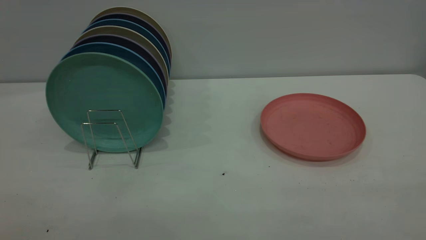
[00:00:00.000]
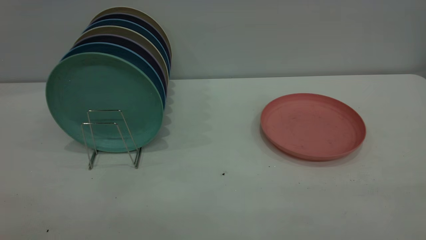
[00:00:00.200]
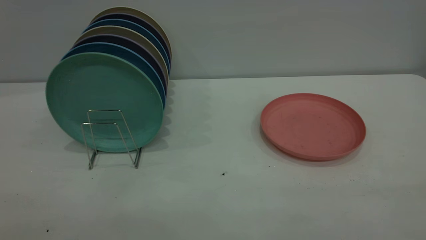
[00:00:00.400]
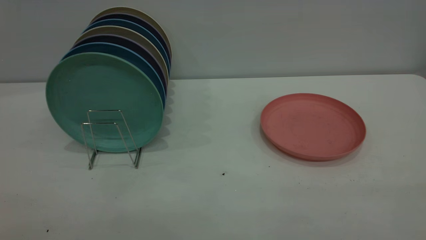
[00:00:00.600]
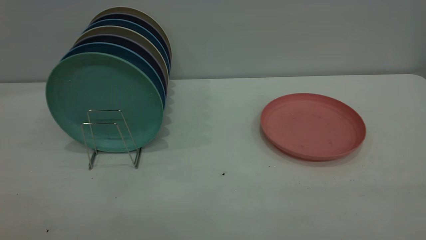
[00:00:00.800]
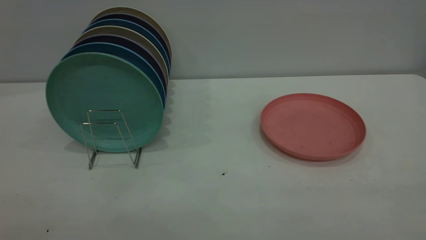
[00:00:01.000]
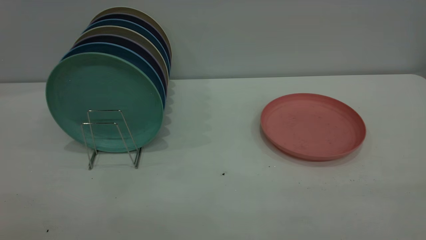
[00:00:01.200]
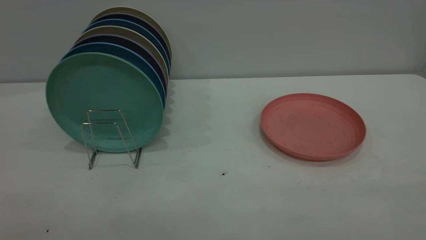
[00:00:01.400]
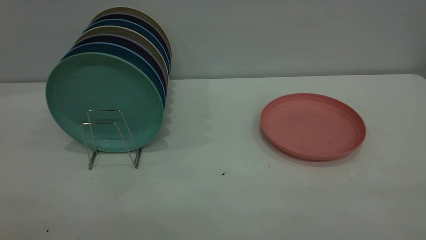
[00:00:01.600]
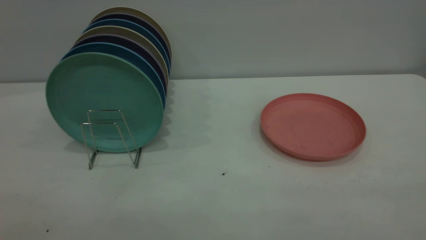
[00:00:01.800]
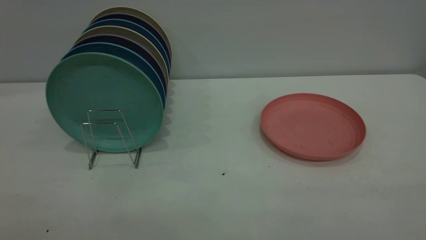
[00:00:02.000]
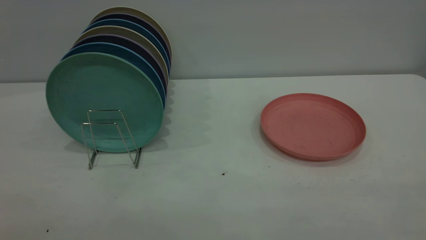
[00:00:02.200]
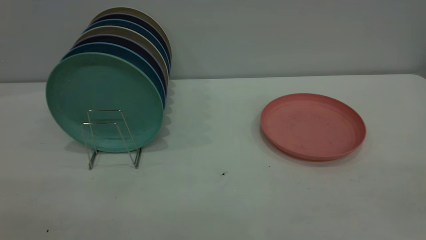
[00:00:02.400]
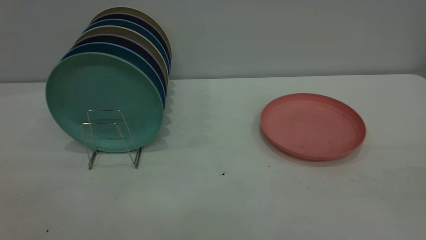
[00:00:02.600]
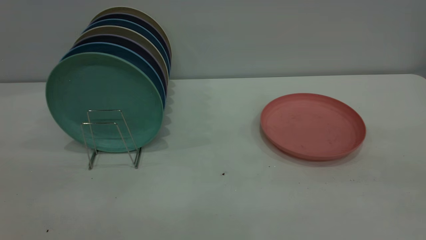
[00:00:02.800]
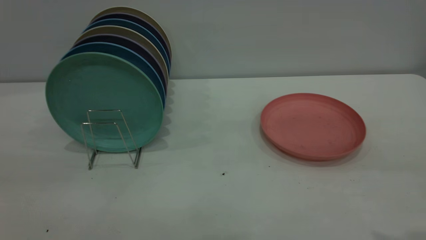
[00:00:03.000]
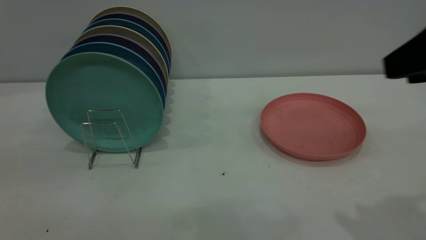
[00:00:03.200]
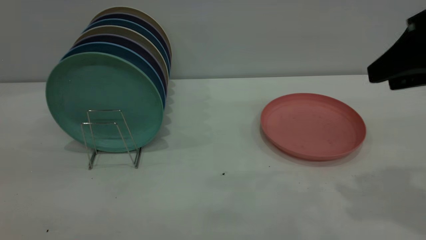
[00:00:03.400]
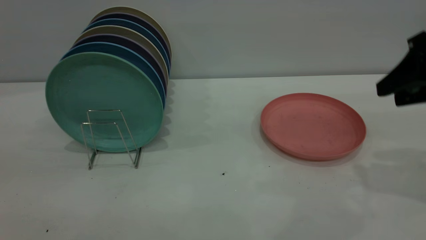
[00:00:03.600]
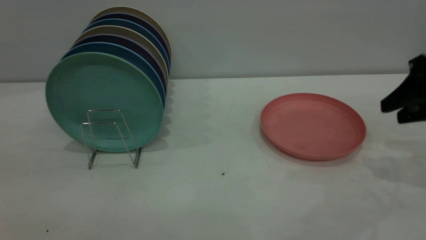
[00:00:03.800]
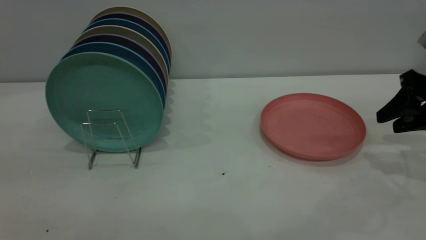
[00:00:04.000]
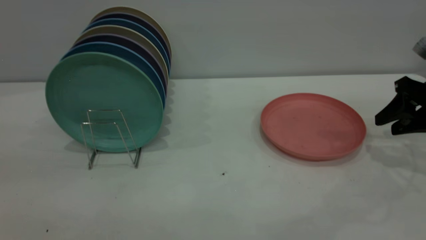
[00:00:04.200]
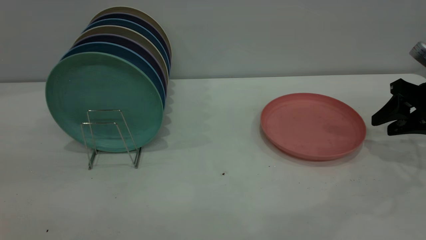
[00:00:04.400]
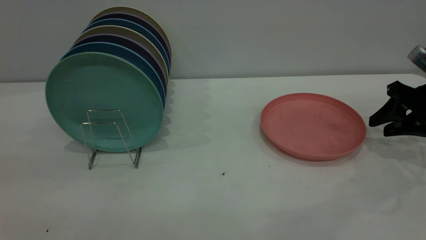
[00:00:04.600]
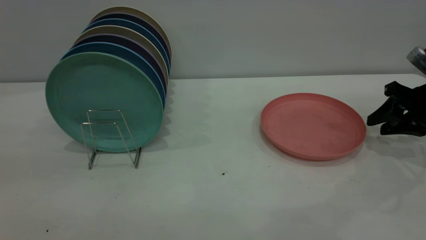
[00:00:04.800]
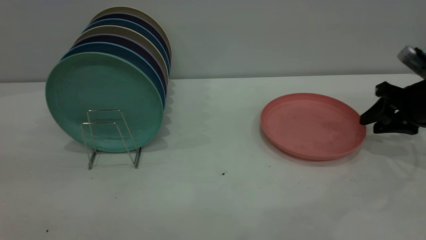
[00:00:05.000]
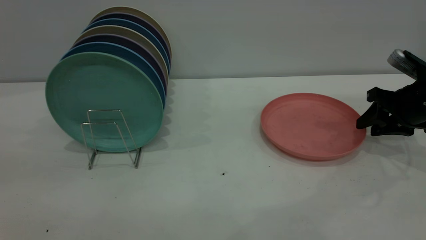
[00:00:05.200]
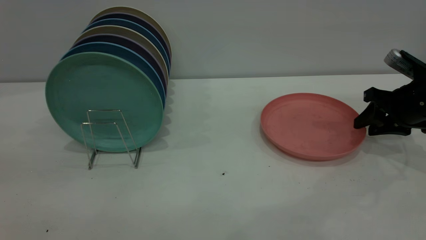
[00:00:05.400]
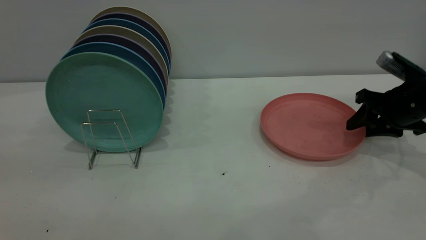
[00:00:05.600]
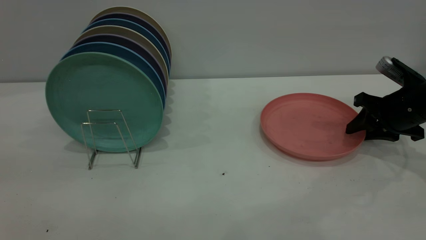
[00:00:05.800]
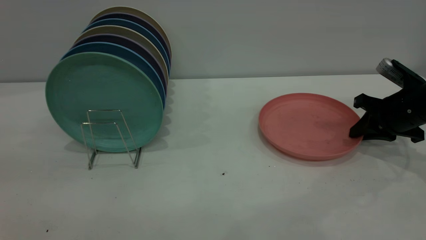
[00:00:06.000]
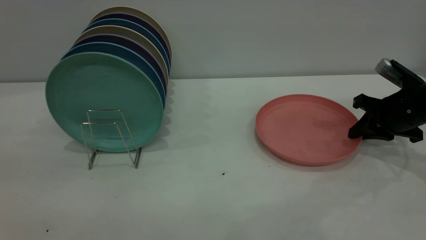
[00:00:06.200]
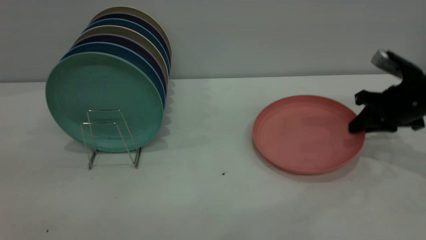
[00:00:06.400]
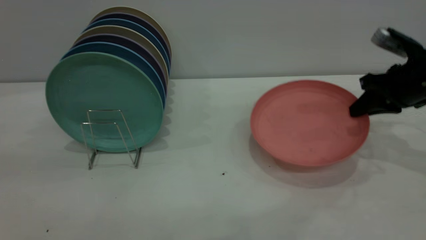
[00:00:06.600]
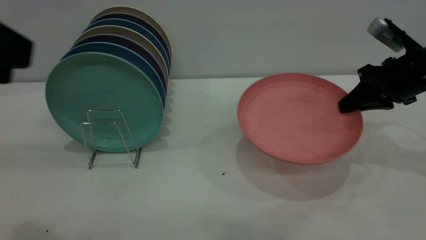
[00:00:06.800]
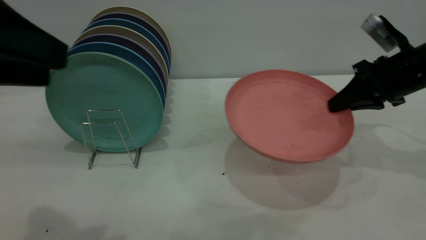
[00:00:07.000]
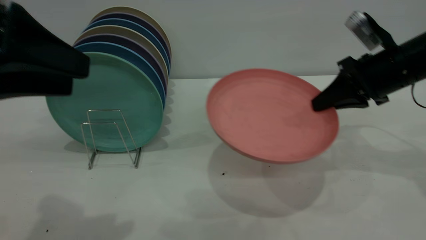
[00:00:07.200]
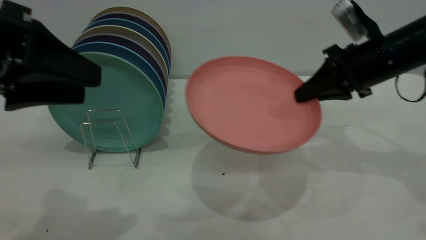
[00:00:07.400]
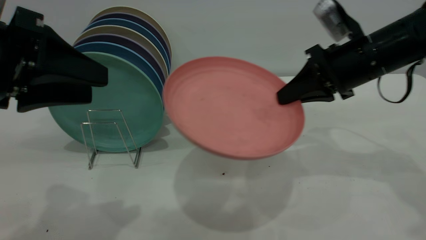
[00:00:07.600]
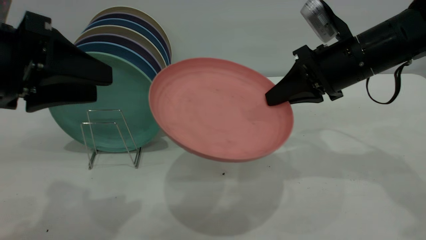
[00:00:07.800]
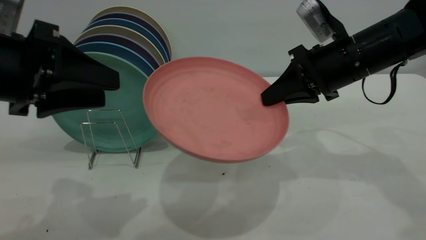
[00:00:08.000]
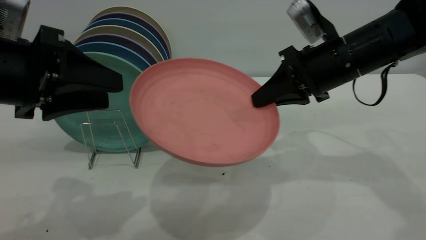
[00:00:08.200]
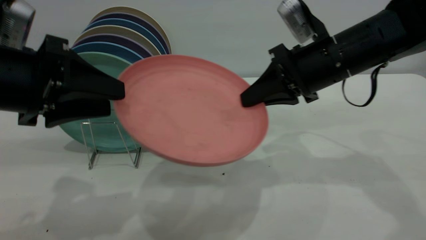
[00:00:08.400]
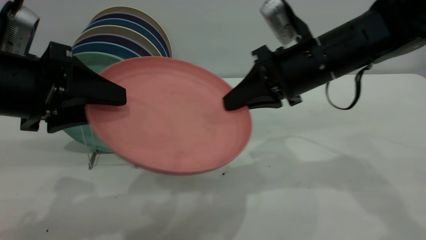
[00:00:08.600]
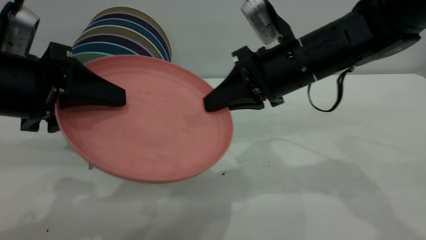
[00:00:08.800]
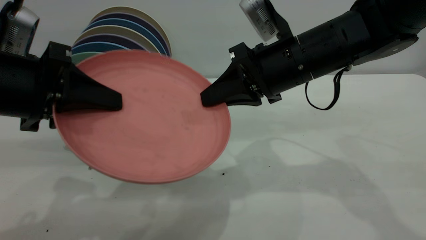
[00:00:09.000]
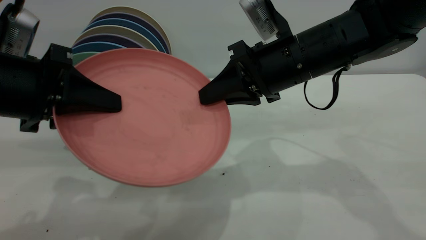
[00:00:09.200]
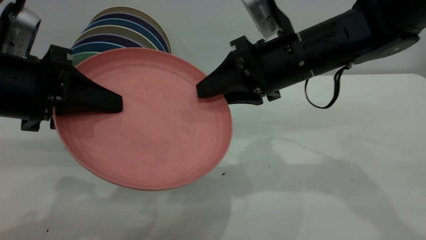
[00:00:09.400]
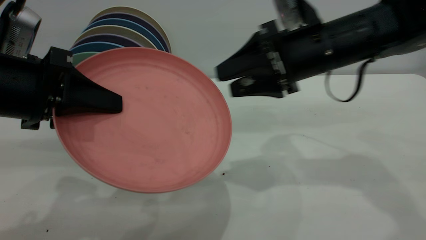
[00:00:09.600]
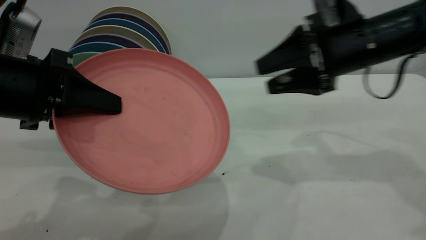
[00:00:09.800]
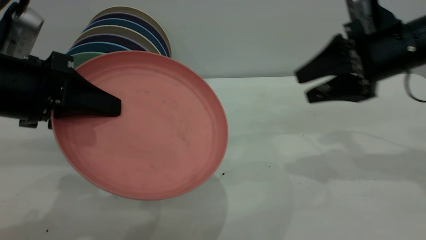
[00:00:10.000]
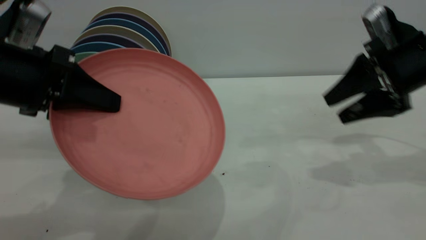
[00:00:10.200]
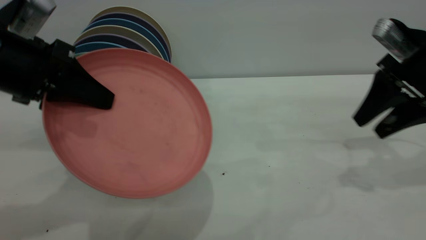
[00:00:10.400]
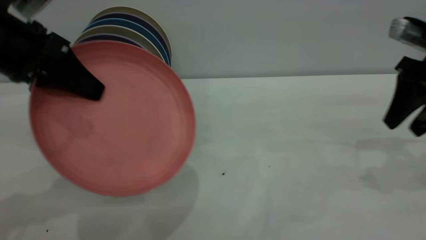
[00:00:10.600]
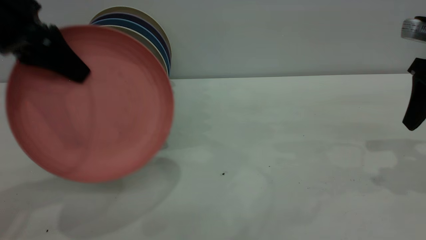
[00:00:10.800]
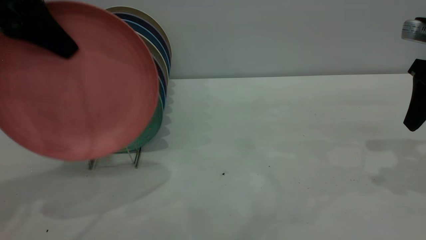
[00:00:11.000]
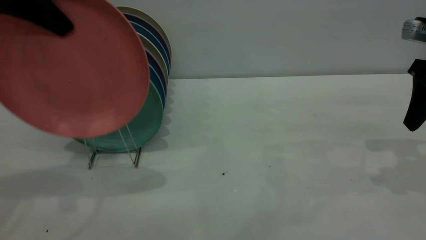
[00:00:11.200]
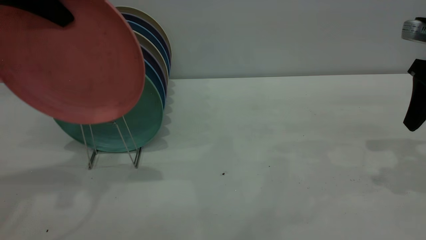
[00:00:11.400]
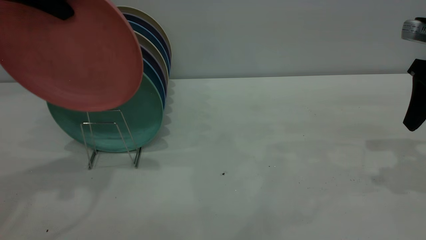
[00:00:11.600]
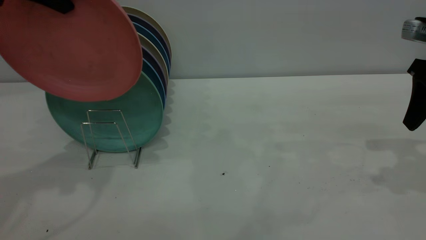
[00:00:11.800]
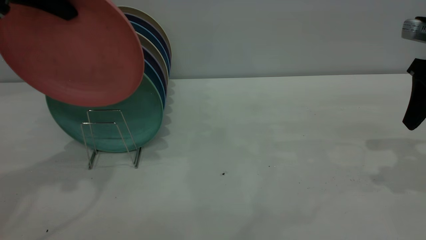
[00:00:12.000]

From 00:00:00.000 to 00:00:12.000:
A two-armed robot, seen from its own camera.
Task of the whole recording: the right gripper grasp the pink plate, the right gripper pass the pink plate to the left gripper, and the left gripper place the pink plate on the plate rack.
Step, from 00:00:00.000 to 00:00:06.800: Pick up the plate with the right gripper.
Step, from 00:00:07.000 to 00:00:09.800: Pass the plate from the right gripper to the left gripper.
From 00:00:00.000 to 00:00:01.600: Both grippers stay put.
From 00:00:03.000 to 00:00:04.400: The right gripper travels forward, downward and to the right by about 30 cm.
From 00:00:04.400 to 00:00:06.000: The right gripper shifts by some 5 cm, and closes up.
From 00:00:06.000 to 00:00:07.600: The right gripper goes about 15 cm to the left and upward. Meanwhile the left gripper travels forward and downward by approximately 15 cm.
From 00:00:07.600 to 00:00:09.000: The left gripper closes up. The right gripper travels to the left by roughly 10 cm.
From 00:00:09.000 to 00:00:10.400: The right gripper shifts roughly 20 cm to the right, and opens.
From 00:00:10.400 to 00:00:12.000: The left gripper goes about 15 cm upward and forward.

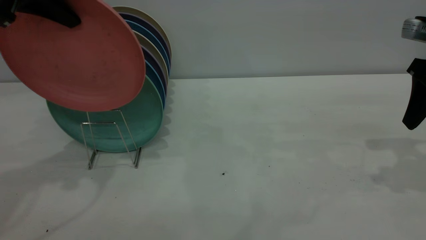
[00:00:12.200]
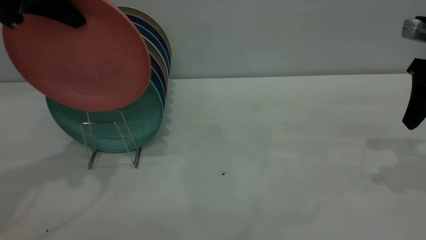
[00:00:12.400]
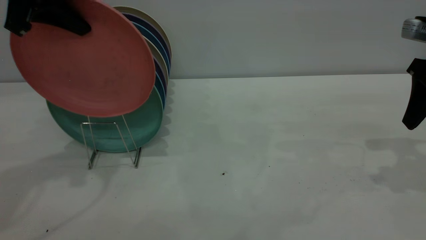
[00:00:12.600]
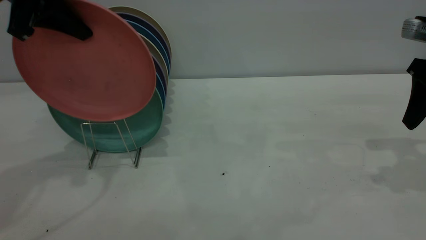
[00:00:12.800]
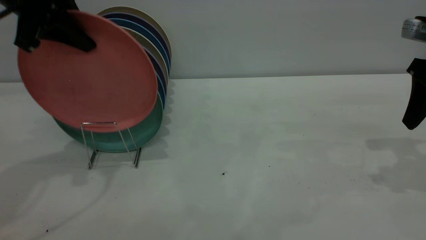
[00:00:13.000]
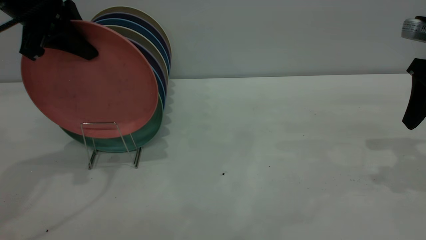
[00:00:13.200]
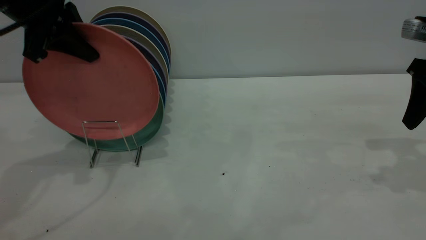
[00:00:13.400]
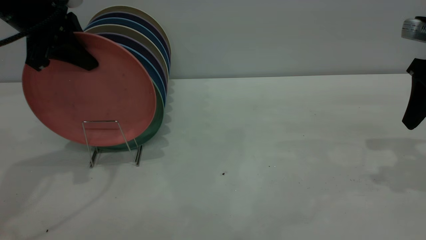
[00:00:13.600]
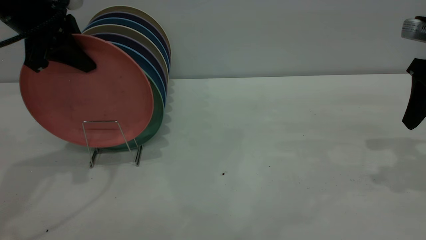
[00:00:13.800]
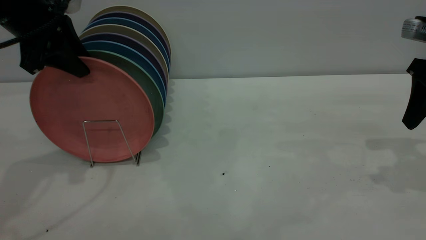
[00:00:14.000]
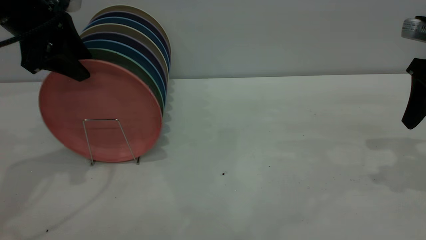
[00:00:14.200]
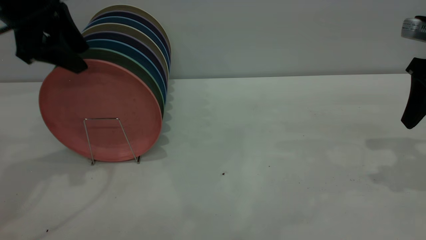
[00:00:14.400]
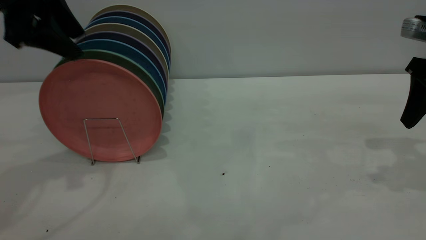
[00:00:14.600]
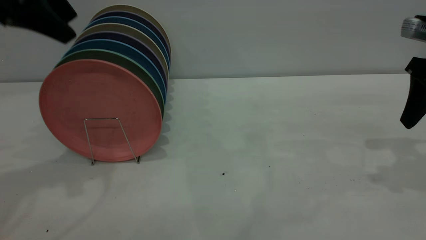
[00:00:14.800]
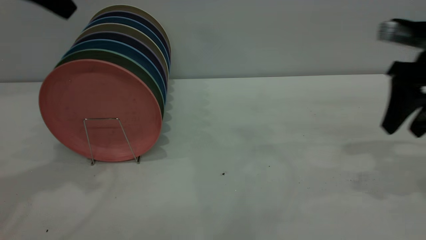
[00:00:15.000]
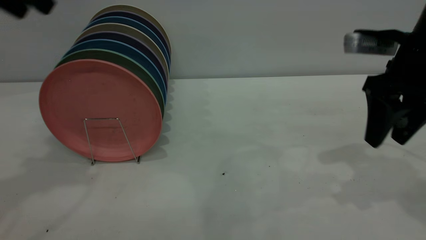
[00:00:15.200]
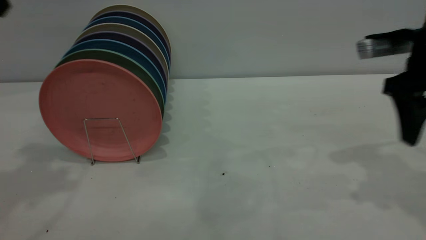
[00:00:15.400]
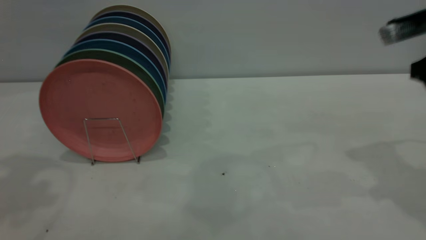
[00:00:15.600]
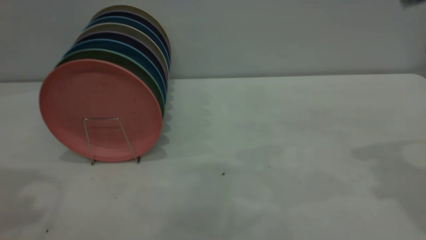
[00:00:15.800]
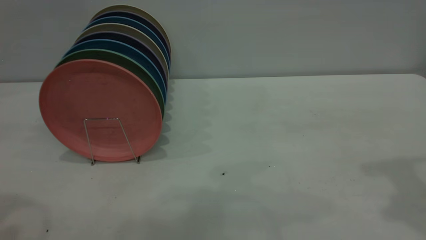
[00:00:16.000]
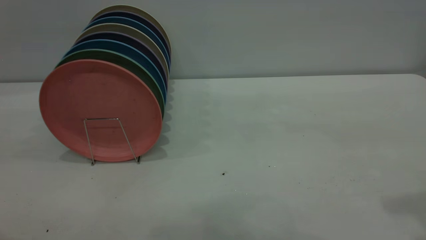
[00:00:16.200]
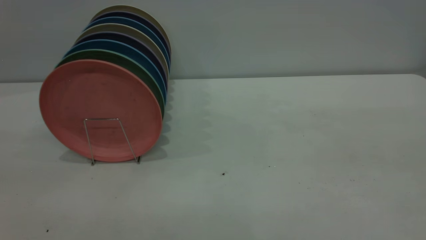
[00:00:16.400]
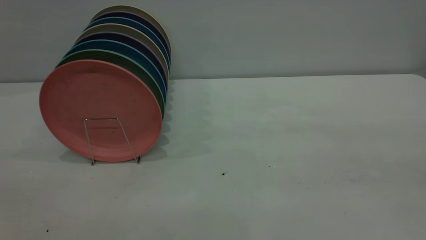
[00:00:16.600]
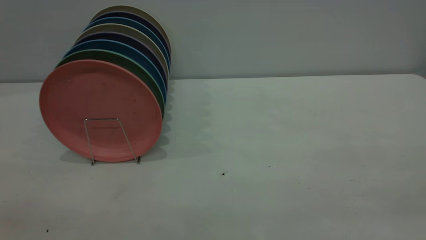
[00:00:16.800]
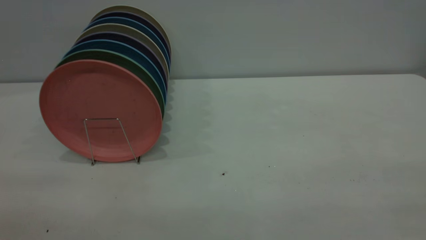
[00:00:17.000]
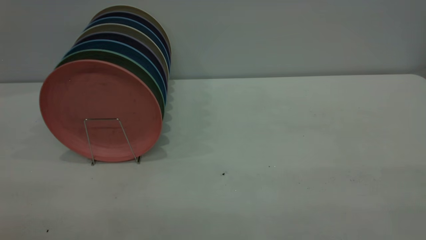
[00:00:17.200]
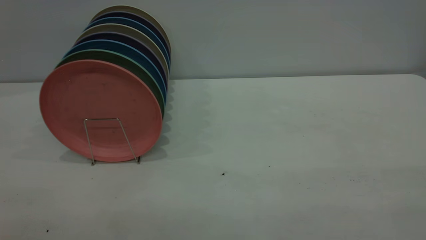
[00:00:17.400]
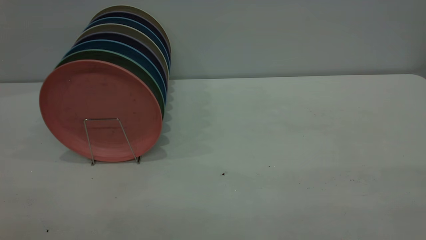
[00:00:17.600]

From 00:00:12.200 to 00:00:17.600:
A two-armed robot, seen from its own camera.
Task of the whole recording: the right gripper grasp the pink plate, the right gripper pass the pink plate to the left gripper, and the left gripper place the pink plate on the plate rack.
Step, from 00:00:12.200 to 00:00:15.000: Place the plate on the shelf.
From 00:00:12.200 to 00:00:13.600: The left gripper is displaced downward by some 5 cm.
From 00:00:13.600 to 00:00:15.000: The left gripper goes approximately 10 cm upward, and opens. The right gripper goes about 5 cm to the left.
From 00:00:15.000 to 00:00:16.200: The right gripper goes approximately 20 cm upward and backward.
